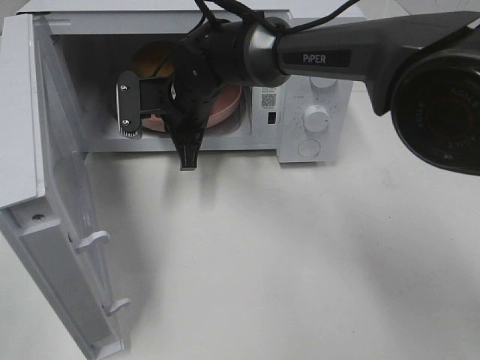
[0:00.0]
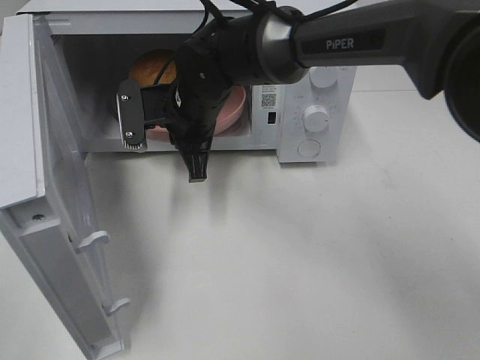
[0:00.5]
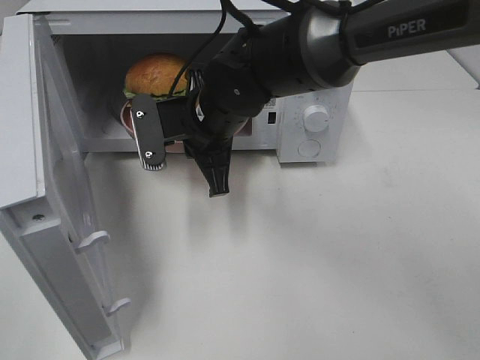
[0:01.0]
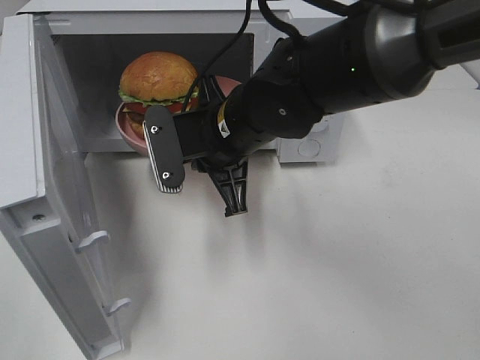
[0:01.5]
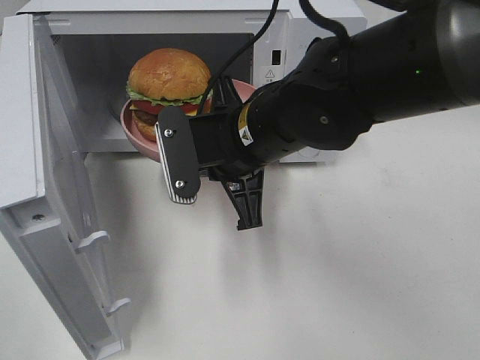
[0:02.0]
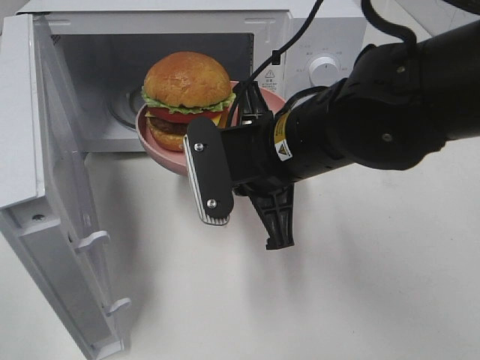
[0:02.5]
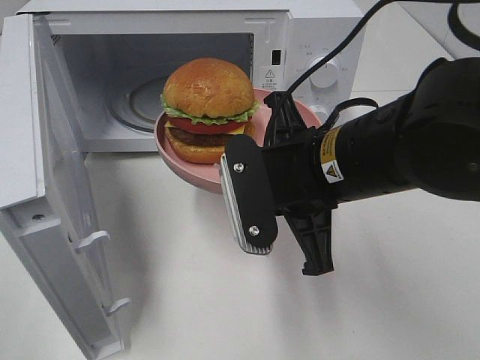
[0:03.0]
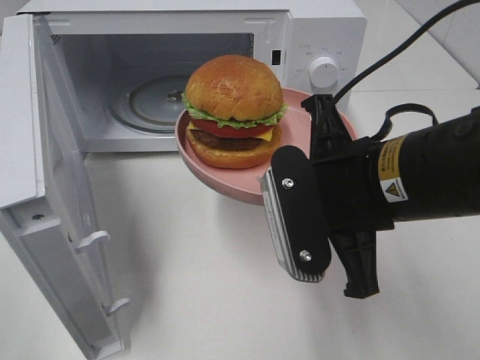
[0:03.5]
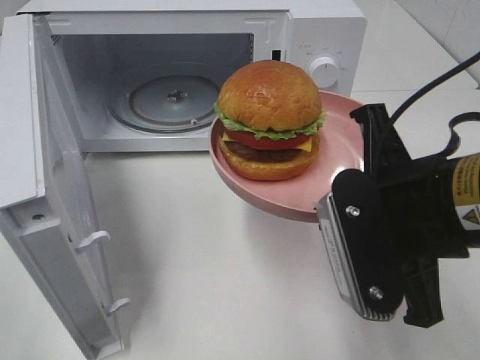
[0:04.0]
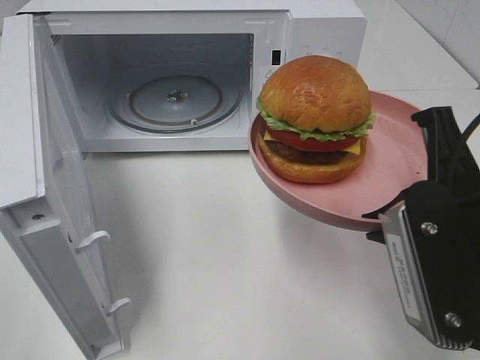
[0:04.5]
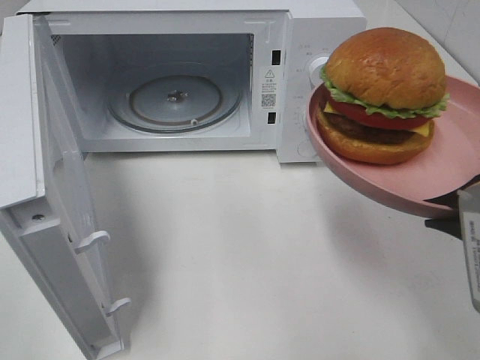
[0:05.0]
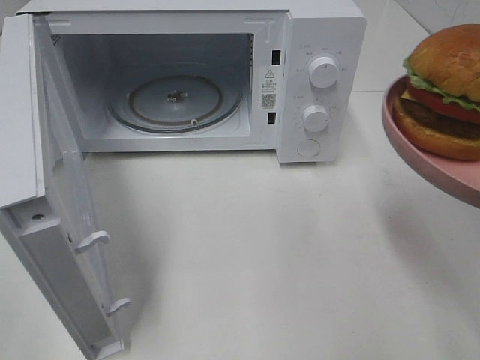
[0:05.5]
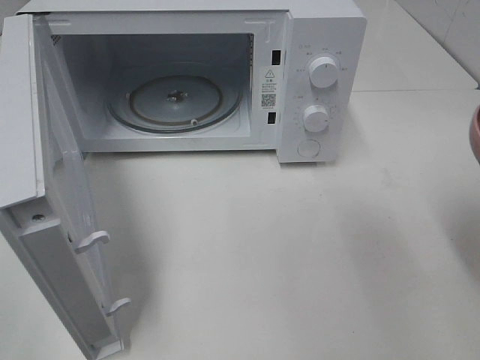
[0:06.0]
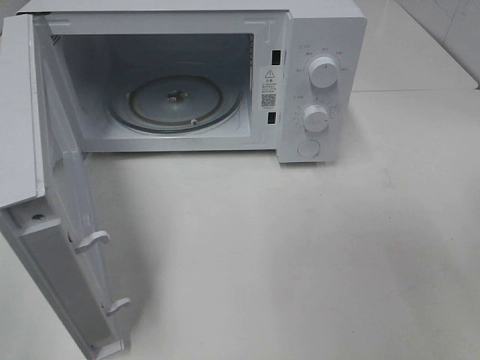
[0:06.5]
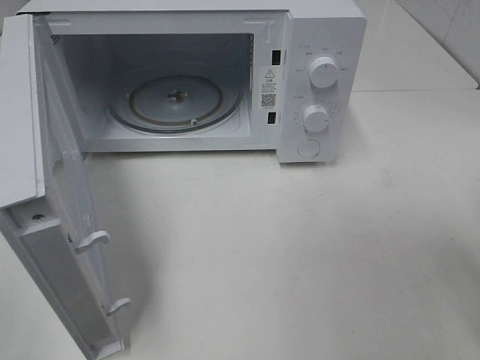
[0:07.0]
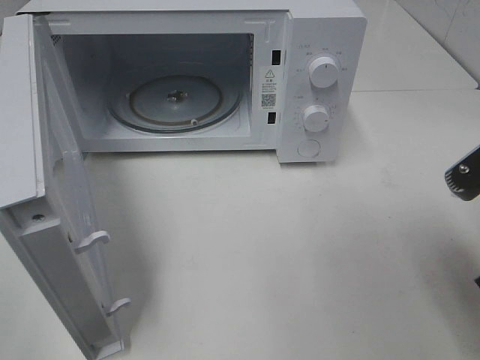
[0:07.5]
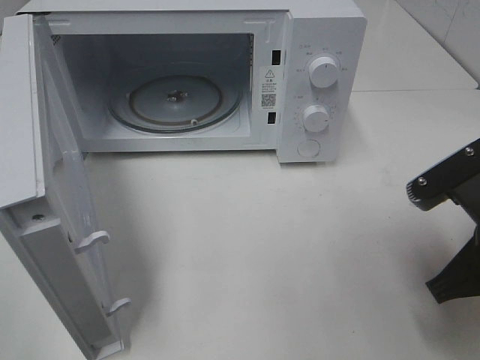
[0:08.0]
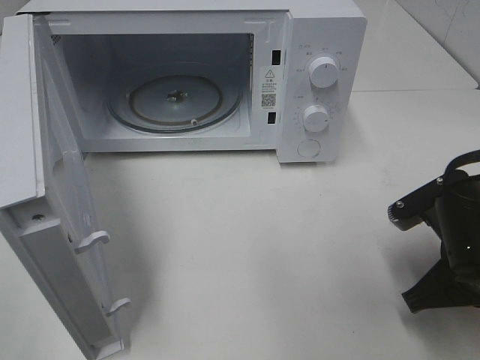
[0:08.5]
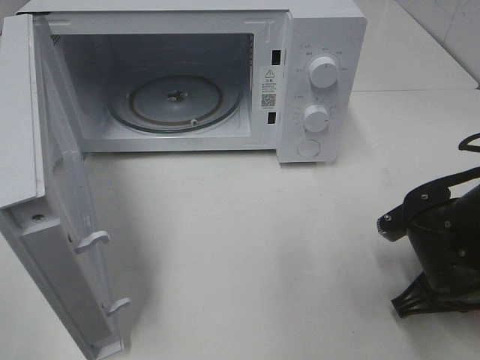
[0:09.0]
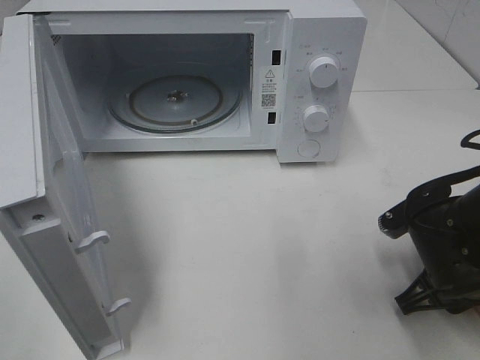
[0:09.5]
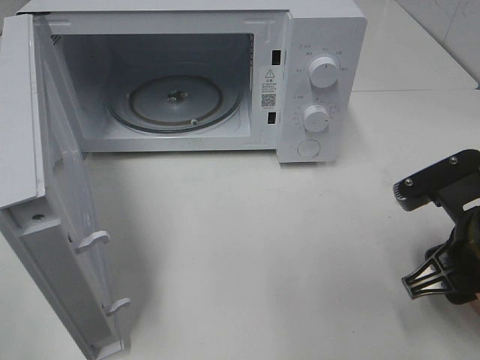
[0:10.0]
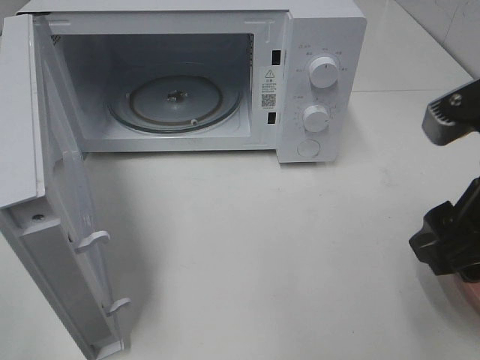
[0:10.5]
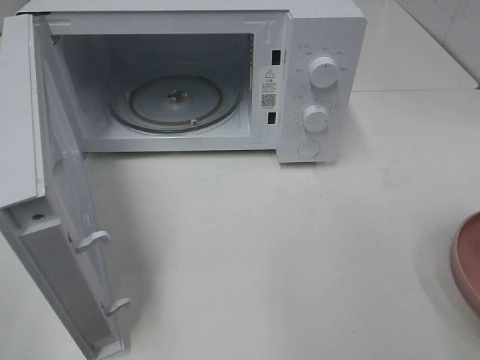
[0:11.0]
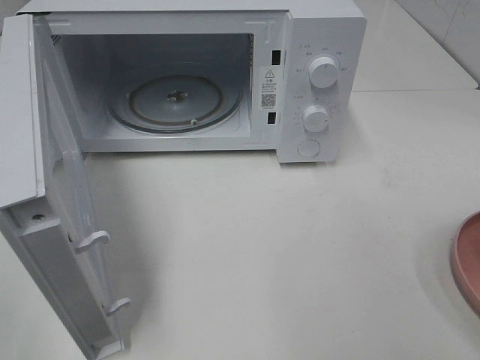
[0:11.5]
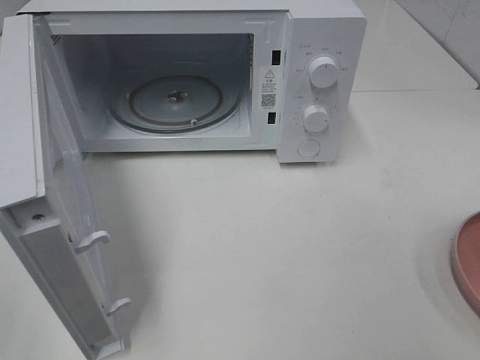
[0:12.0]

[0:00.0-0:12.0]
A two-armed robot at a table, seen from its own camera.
Task of the whole recording: Heat the burger.
Step, 0:00.0 to 0:09.5: Right hand: place the plate on the table.
0:00.0 to 0:02.0: The right gripper shifts roughly 15 cm backward and to the right.
0:02.0 to 0:04.0: The right gripper travels backward and to the right by some 15 cm.
0:04.0 to 0:06.0: The right gripper shifts about 10 cm to the right and backward.
0:06.0 to 0:08.0: The right gripper heads downward and forward, covering approximately 10 cm.
0:08.0 to 0:10.0: The right gripper goes downward and returns, about 10 cm each way, and opens.
0:10.0 to 0:12.0: The right gripper shifts about 20 cm backward, upward and to the right.

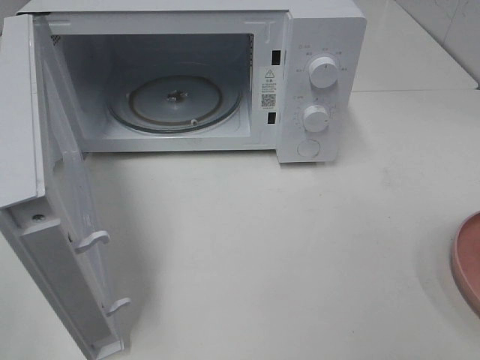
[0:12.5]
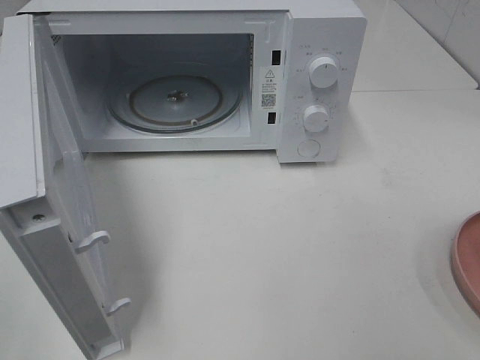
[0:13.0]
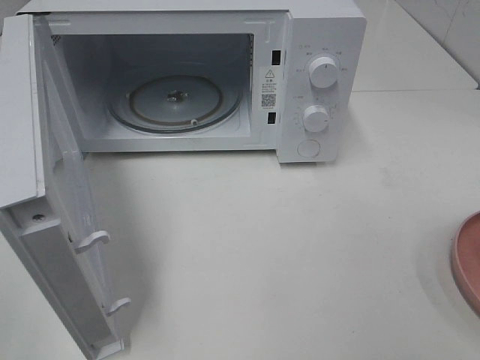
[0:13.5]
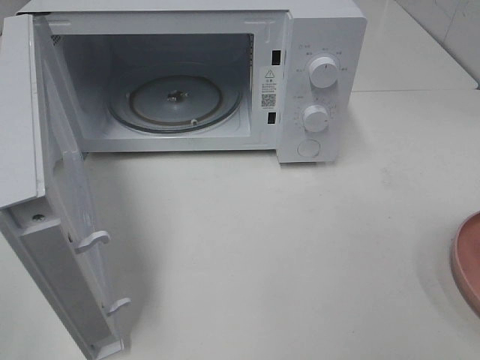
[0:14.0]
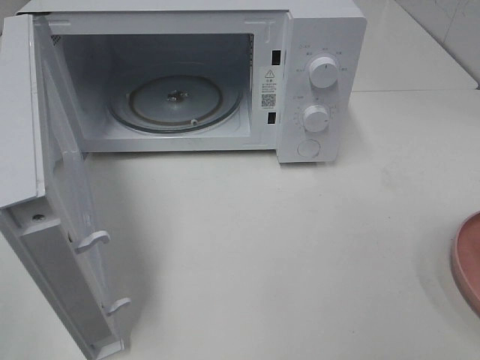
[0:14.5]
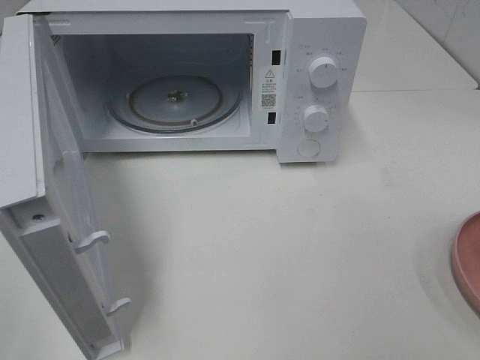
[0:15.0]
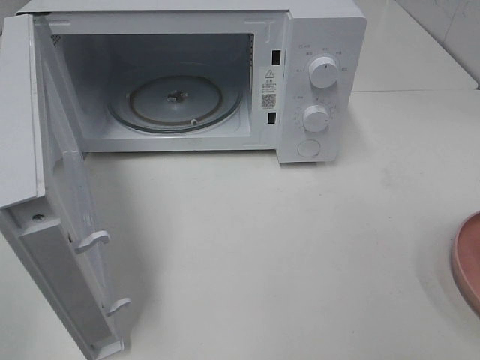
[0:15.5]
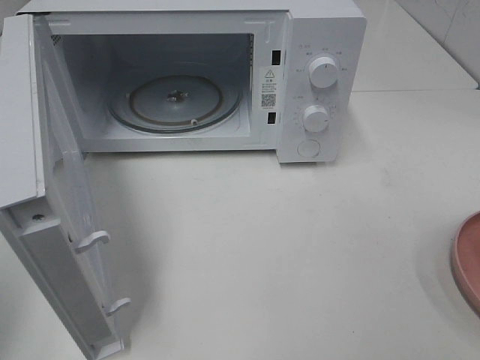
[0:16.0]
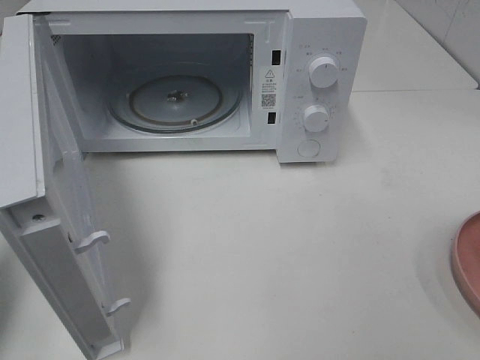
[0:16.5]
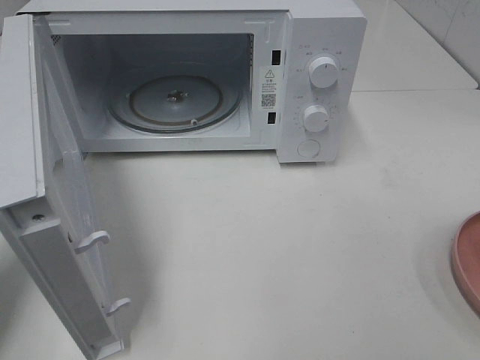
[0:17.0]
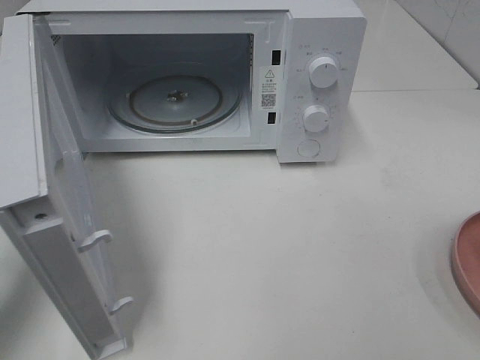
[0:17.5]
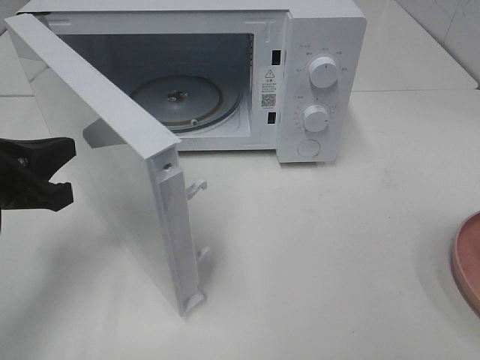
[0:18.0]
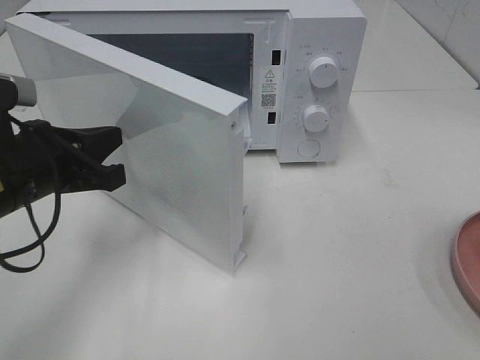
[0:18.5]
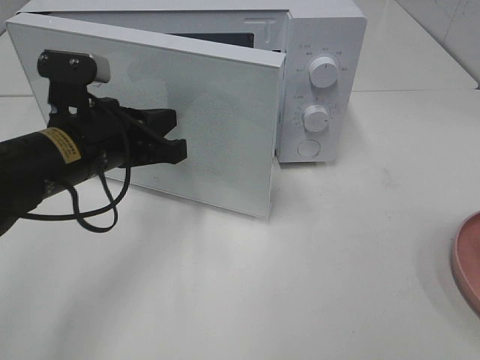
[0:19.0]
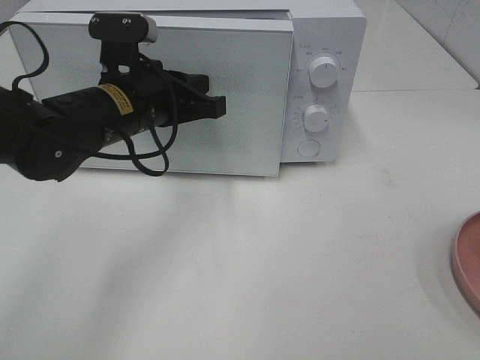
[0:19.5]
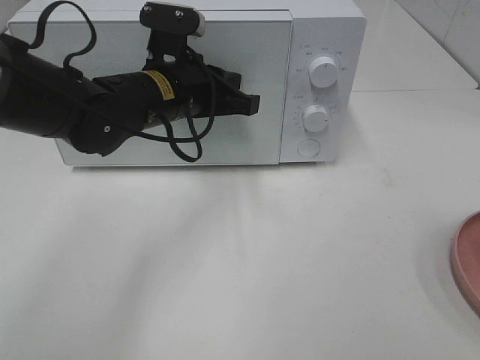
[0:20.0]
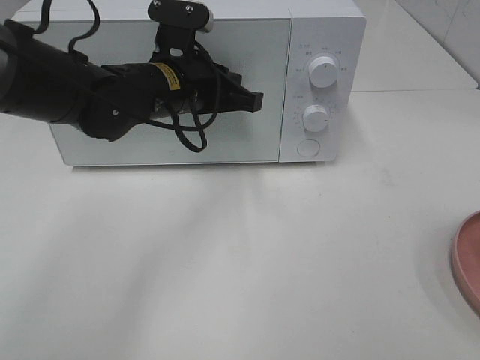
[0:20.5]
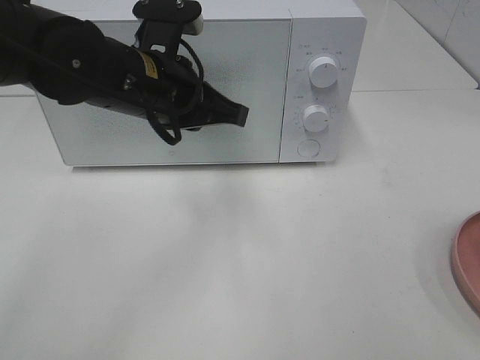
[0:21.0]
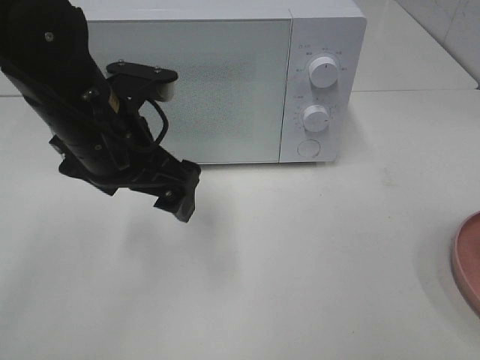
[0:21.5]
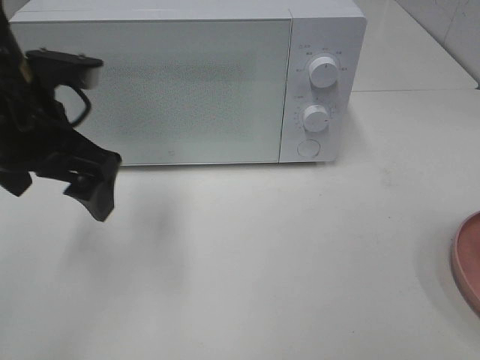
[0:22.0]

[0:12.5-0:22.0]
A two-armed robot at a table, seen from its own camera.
Task of the whole recording: Heat the burger.
Step, 0:12.5 to 0:20.5: Left hand: close the microwave door.
0:14.5 to 0:16.5: The left gripper is displaced forward by some 15 cm, and closes up.
0:16.5 to 0:18.0: The left gripper is displaced to the right, downward and forward by roughly 15 cm.
0:18.0 to 0:20.0: The left gripper moves to the right and forward, roughly 20 cm.
0:20.0 to 0:22.0: The left gripper moves to the left, backward and upward, some 15 cm, and opens up.

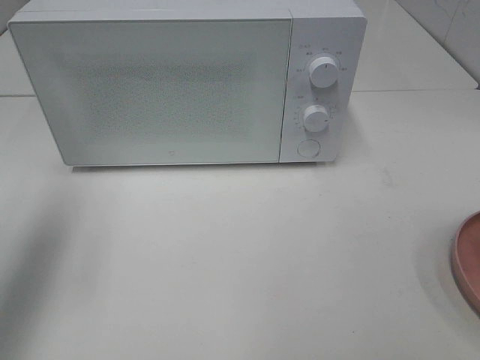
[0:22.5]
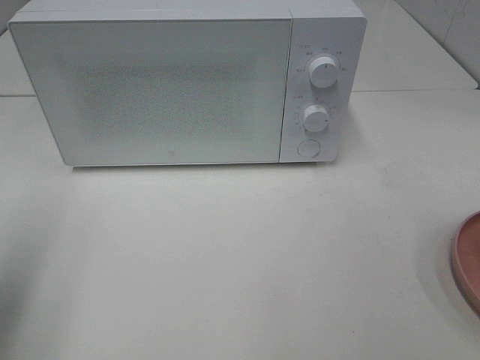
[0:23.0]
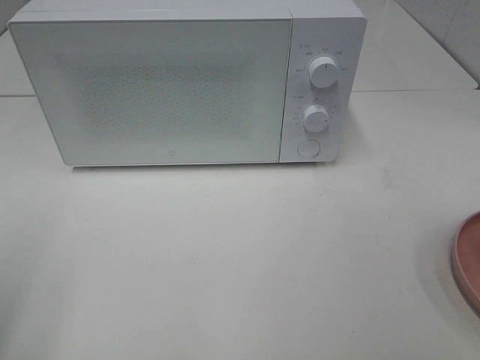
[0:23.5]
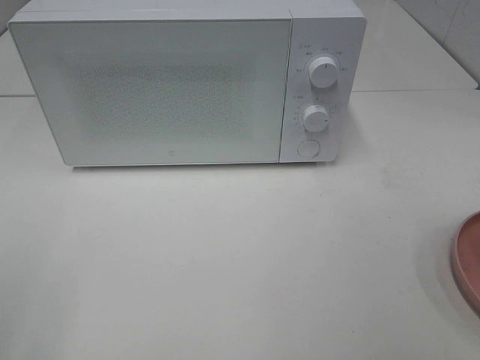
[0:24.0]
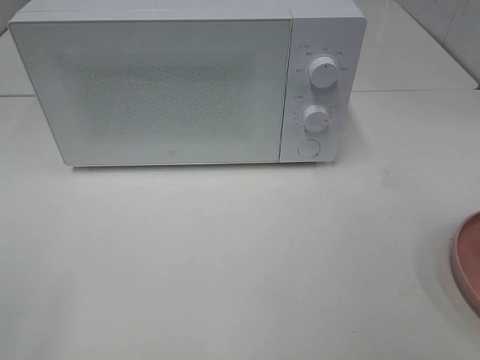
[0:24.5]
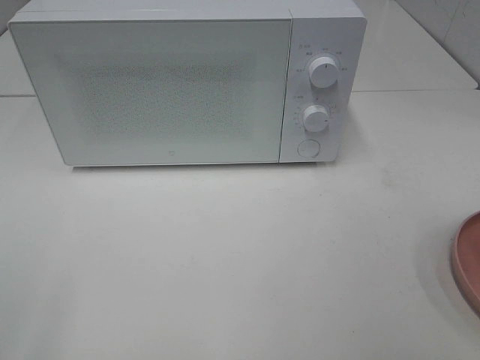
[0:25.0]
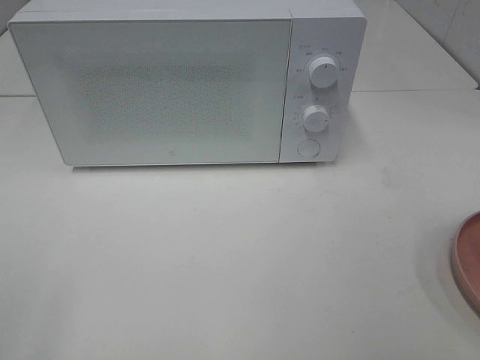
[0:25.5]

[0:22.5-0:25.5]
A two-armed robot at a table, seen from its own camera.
Task of the whole recording: Heat the burger.
0:22.5 to 0:24.0: The left gripper moves backward, about 20 cm.

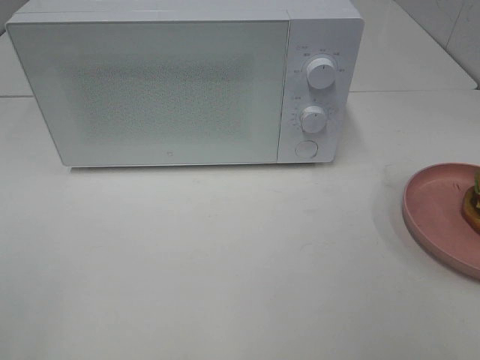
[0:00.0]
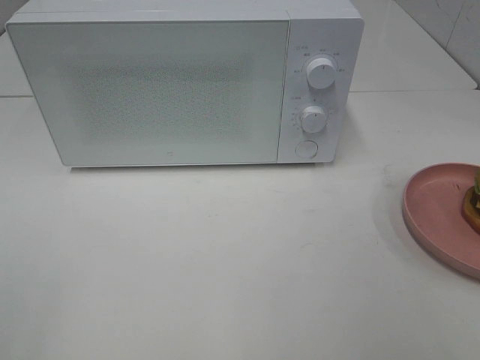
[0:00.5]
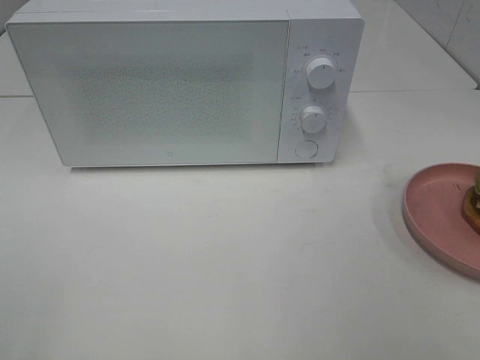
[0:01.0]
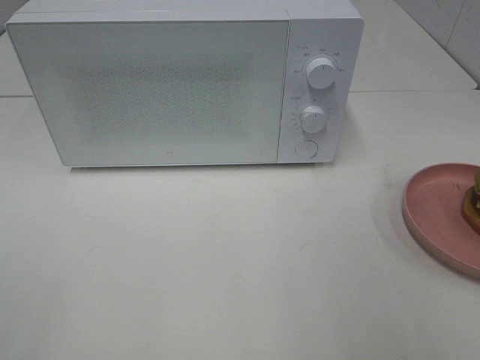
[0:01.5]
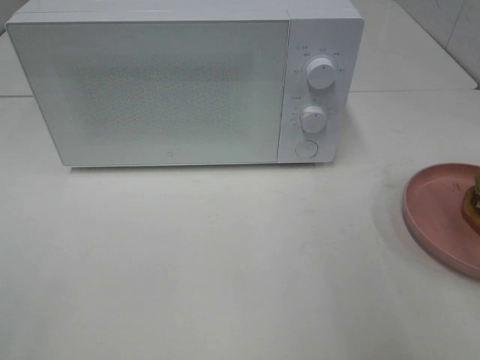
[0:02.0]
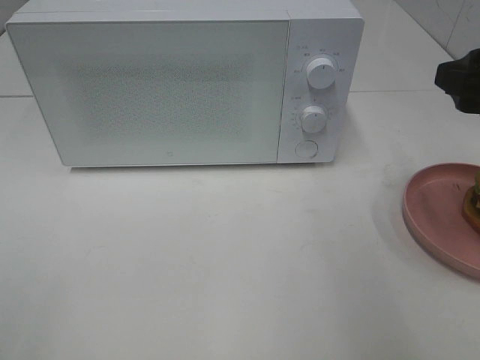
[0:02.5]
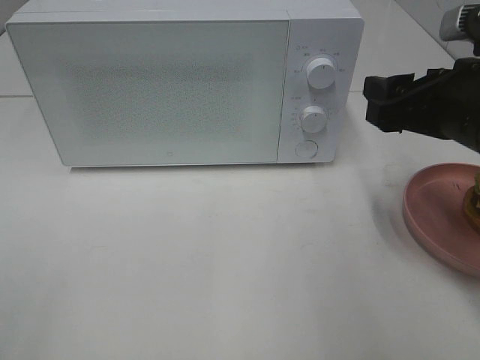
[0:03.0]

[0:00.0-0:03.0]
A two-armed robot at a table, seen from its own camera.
Task of the whole recording: Heat the burger.
0:01.5 to 0:03.0: The right gripper moves forward and downward, some 15 cm.
